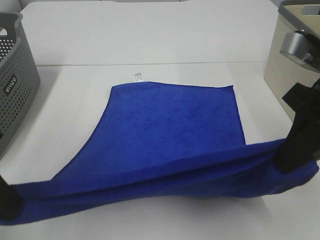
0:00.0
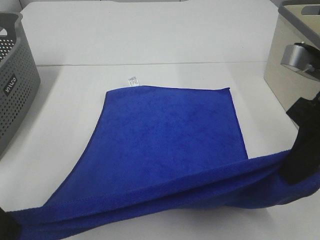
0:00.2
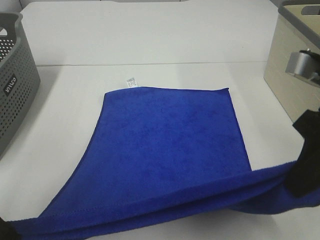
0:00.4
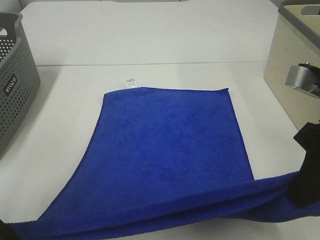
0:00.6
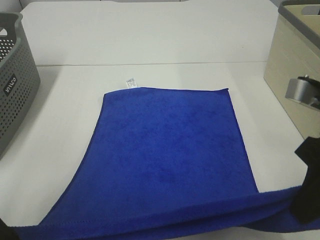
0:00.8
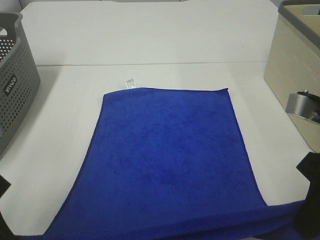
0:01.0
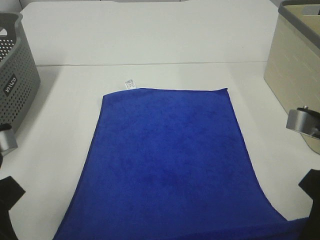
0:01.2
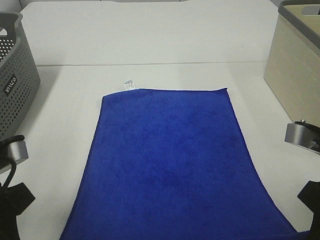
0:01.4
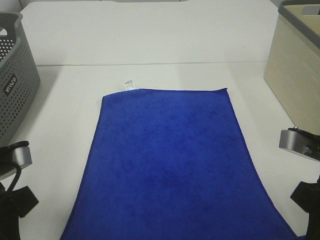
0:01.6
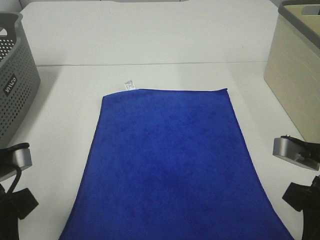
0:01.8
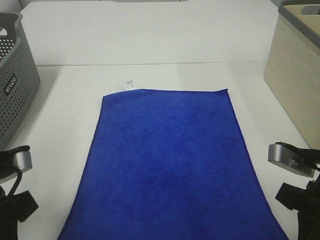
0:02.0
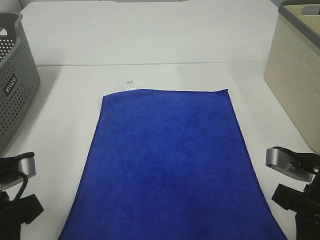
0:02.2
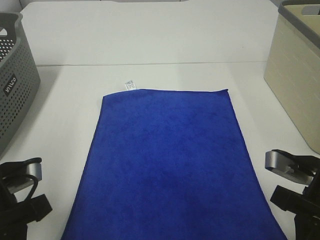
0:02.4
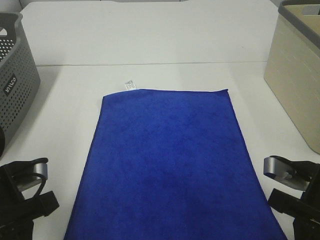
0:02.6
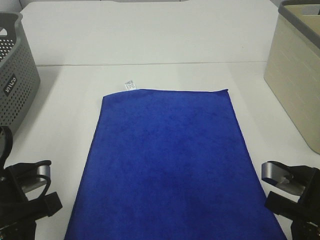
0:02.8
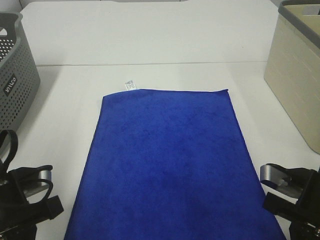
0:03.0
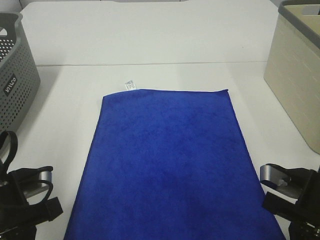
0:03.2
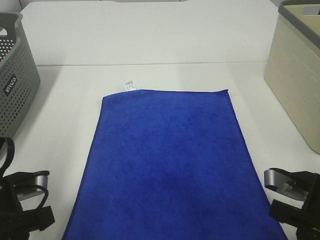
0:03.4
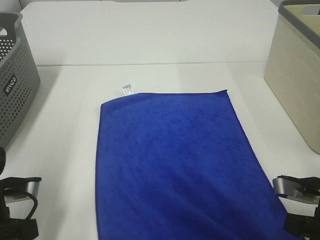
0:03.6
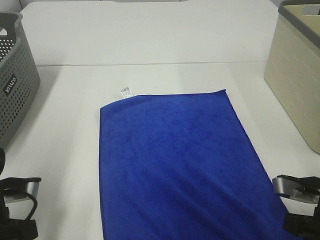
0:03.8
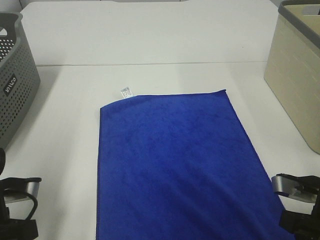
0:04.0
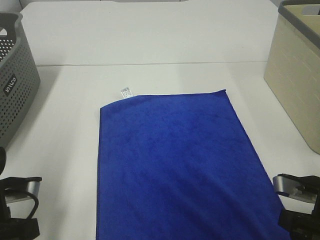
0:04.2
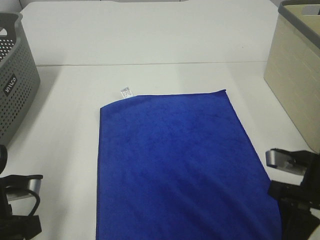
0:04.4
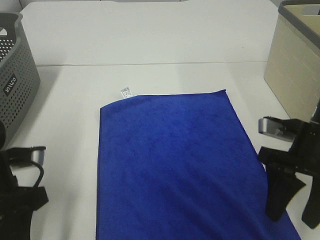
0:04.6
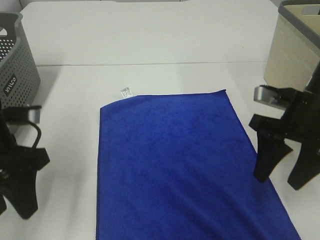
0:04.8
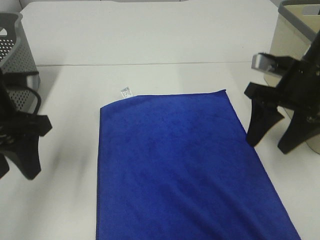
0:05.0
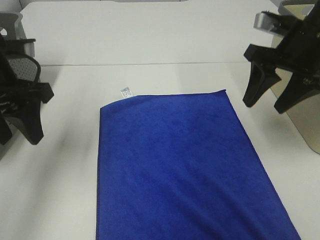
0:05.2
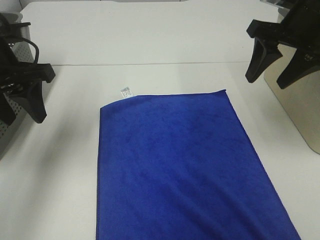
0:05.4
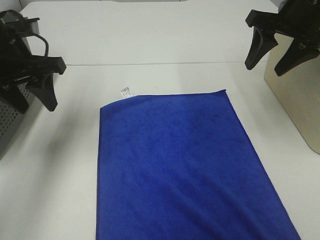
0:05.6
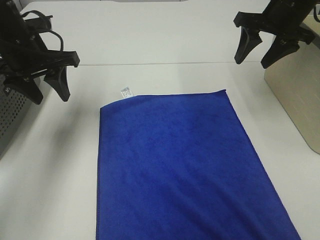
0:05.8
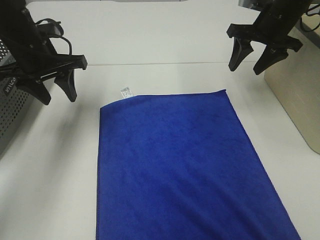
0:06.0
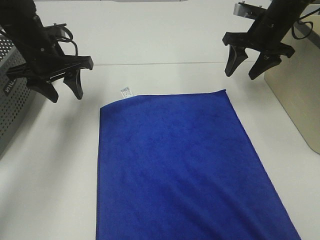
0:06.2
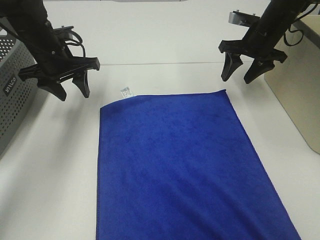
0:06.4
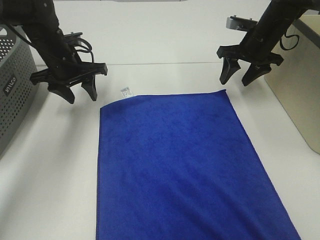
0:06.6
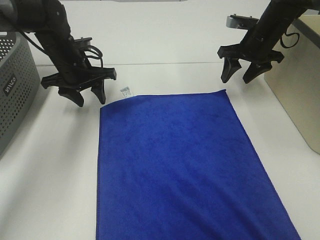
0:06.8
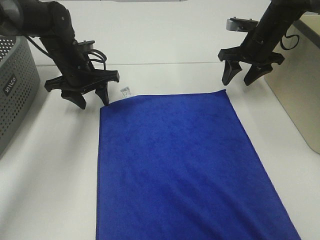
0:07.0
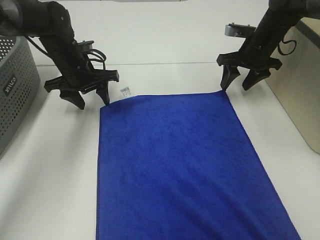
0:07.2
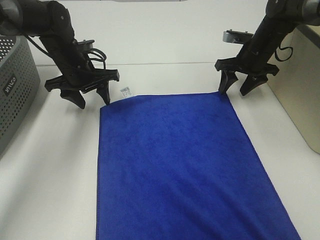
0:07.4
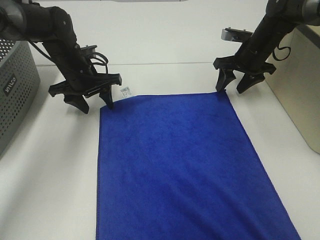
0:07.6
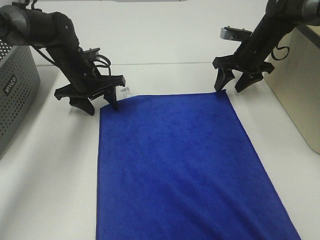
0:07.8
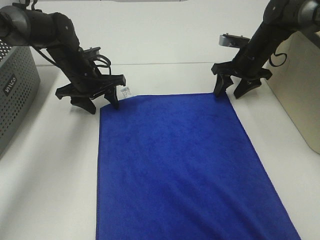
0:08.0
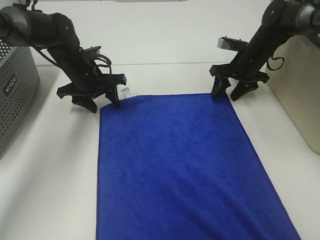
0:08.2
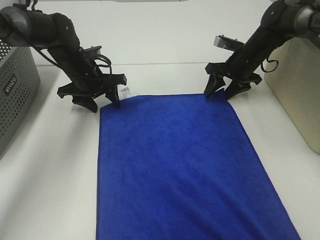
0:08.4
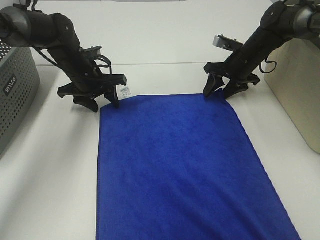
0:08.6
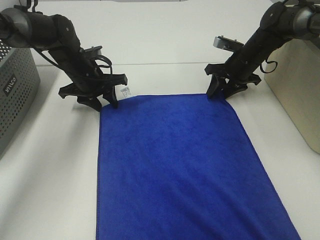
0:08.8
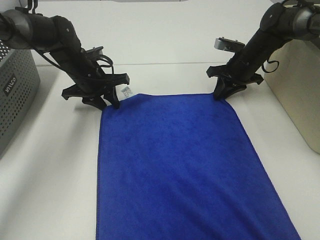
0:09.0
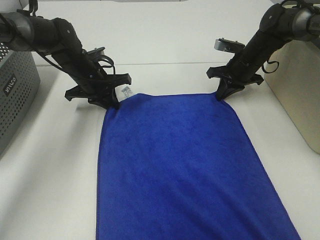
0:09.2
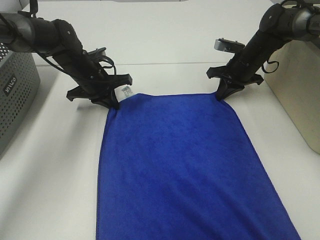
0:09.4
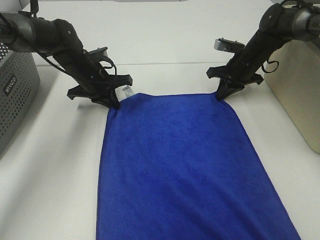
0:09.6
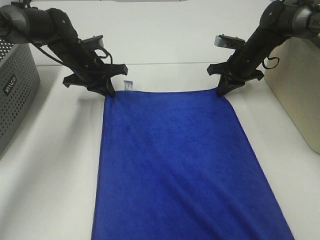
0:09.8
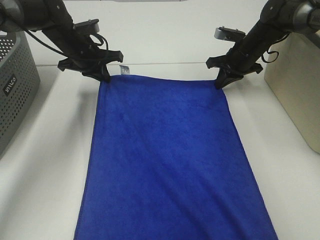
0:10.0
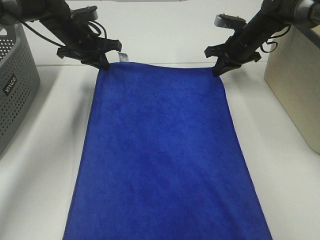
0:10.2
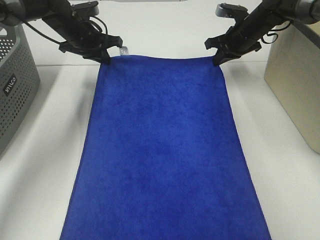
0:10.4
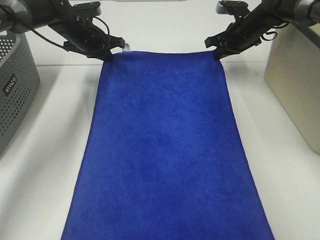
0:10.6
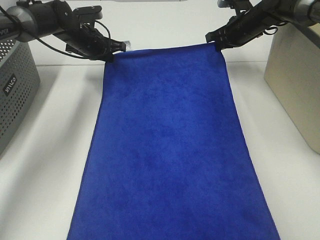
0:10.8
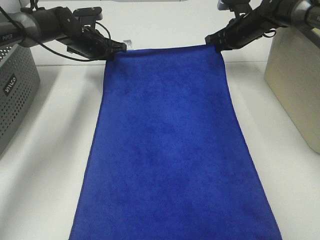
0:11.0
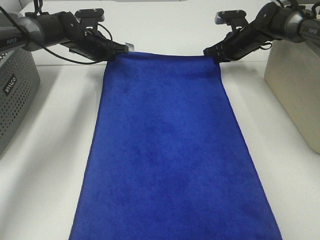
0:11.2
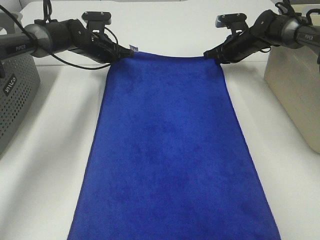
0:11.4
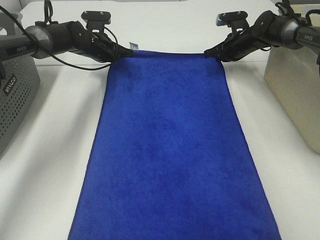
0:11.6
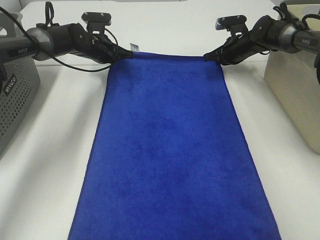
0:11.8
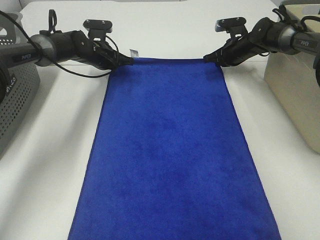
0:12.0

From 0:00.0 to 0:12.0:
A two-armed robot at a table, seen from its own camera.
Task of the whole recording: Remove the towel and place it.
Step, from 0:00.0 to 0:05.6: Right hand:adjust the blue towel.
Step, from 0:00.0 to 0:05.8: Left hand:adjust the blue towel.
From 0:00.0 to 0:01.6: The right gripper travels downward and backward by some 10 cm. Meanwhile the left gripper goes roughly 10 cm downward.
From 0:01.6 to 0:03.0: The grippers both shift downward by roughly 5 cm.
From 0:03.0 to 0:04.4: The left gripper opens its fingers. Meanwhile the right gripper opens its fingers.
From 0:04.4 to 0:06.0: The two grippers go about 25 cm forward.
From 0:06.0 to 0:07.6: The right gripper shifts some 10 cm downward; the left gripper goes some 10 cm downward and forward.
From 0:07.6 to 0:09.0: The right gripper closes.
From 0:09.0 to 0:10.4: The right gripper heads upward, covering about 5 cm, while the left gripper heads forward and upward, covering some 10 cm, and closes its fingers.
From 0:10.4 to 0:12.0: The two grippers go approximately 5 cm downward.

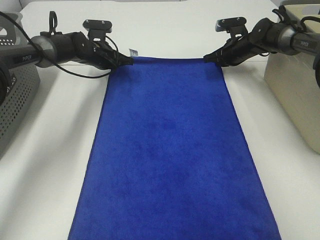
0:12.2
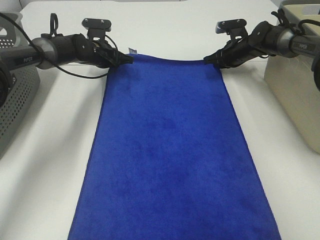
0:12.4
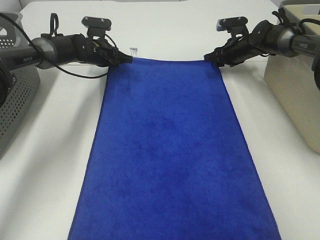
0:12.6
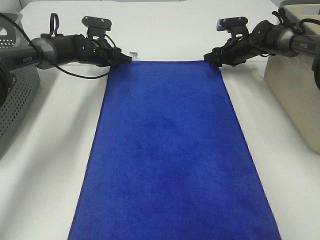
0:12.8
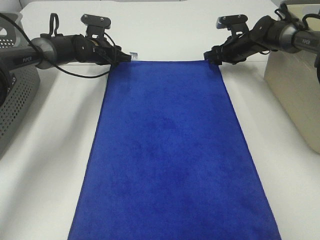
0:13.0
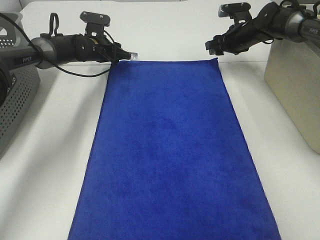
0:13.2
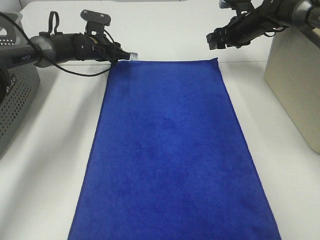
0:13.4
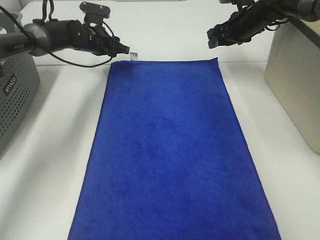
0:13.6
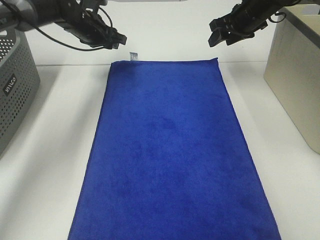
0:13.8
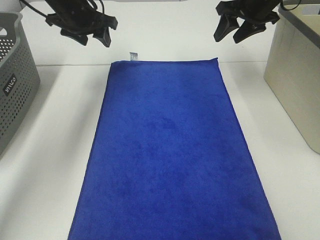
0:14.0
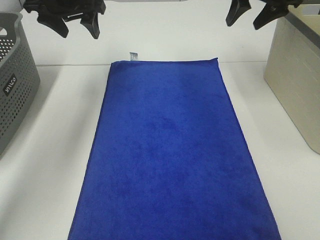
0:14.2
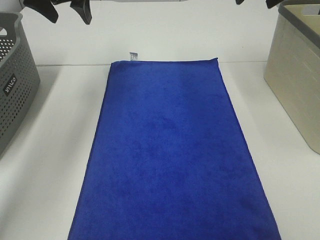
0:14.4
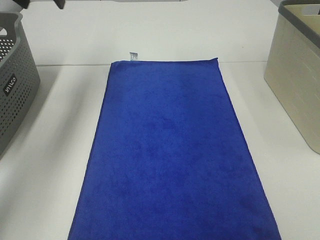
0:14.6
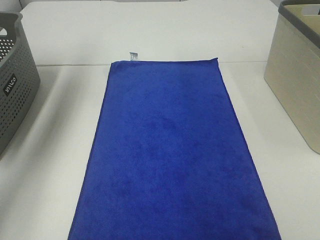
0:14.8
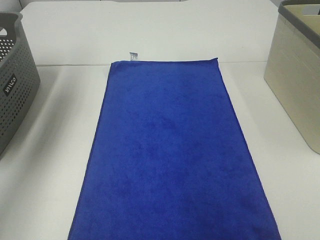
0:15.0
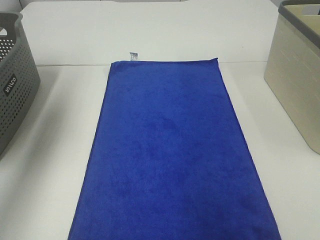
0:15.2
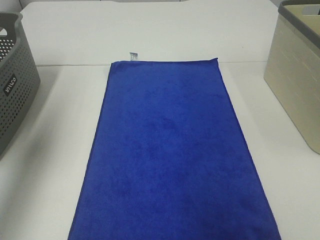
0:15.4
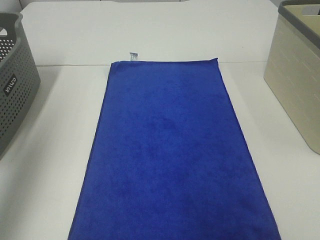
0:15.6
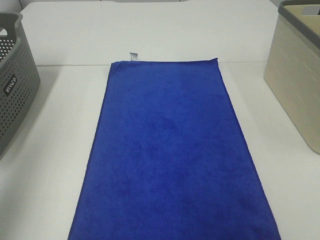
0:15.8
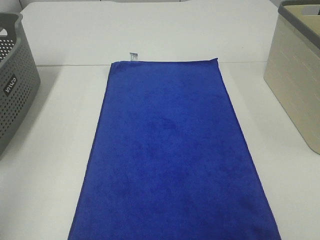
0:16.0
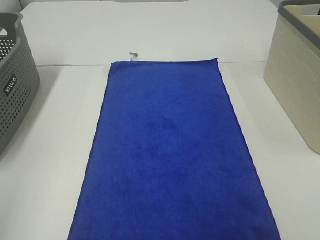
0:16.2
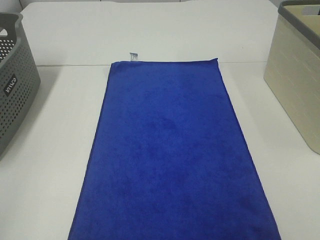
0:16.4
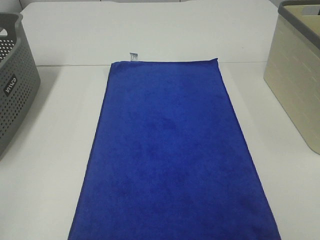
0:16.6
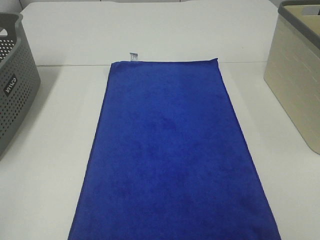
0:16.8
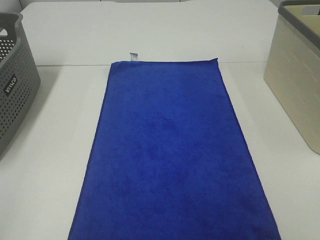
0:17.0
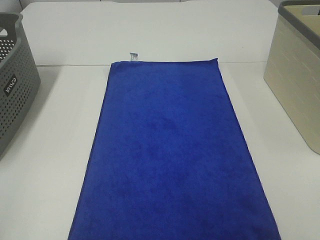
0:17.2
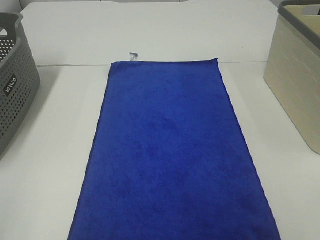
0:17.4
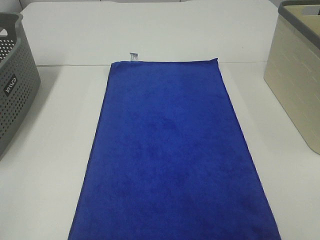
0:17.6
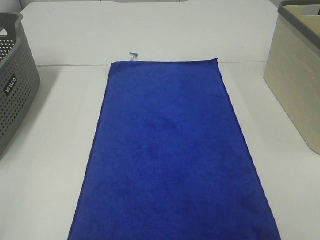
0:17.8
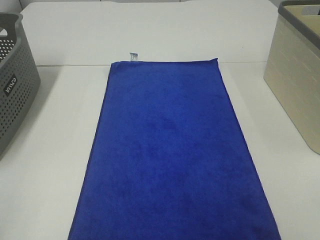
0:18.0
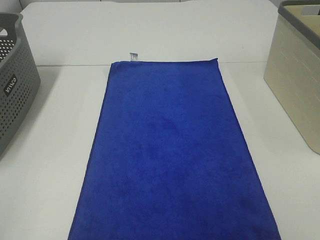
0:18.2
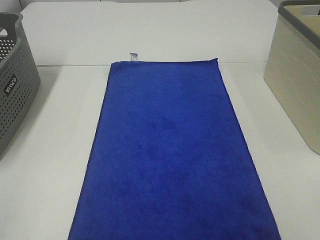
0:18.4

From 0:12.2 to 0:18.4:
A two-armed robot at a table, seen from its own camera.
Task of the whole recording: Remove the towel and place it.
From 0:12.2 to 0:13.8: The two grippers go some 10 cm upward. The left gripper opens up. The right gripper opens its fingers.
From 0:13.8 to 0:15.4: The left gripper is displaced backward, upward and to the left by about 40 cm. Meanwhile the right gripper travels backward and upward by roughly 40 cm.
From 0:15.4 to 0:16.8: The left gripper shifts some 30 cm backward.

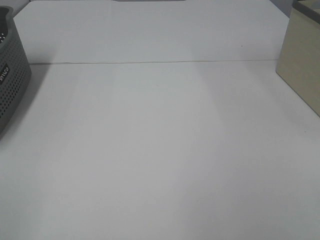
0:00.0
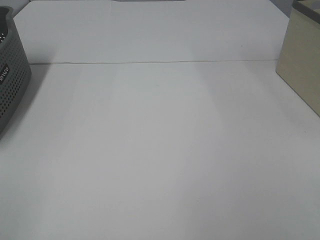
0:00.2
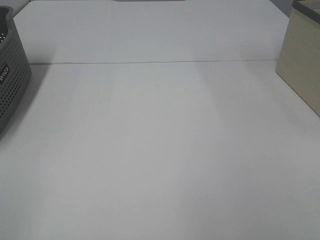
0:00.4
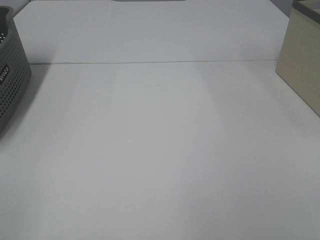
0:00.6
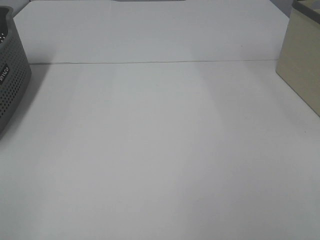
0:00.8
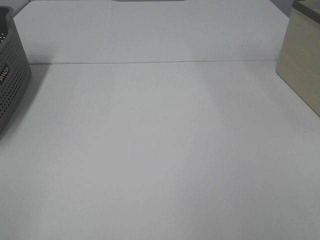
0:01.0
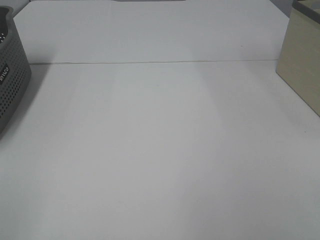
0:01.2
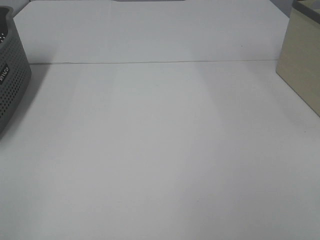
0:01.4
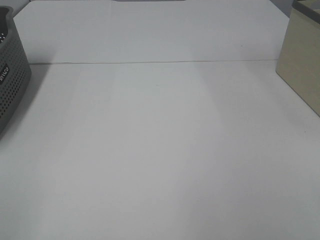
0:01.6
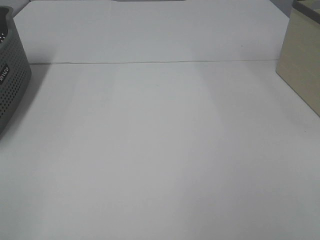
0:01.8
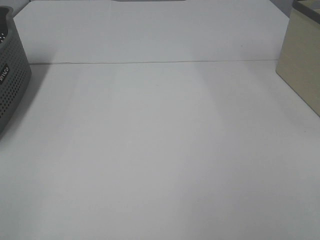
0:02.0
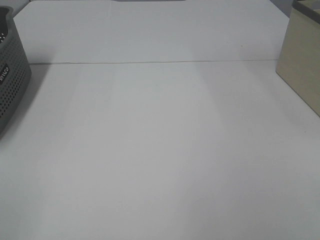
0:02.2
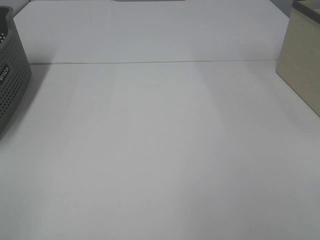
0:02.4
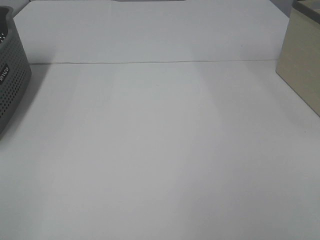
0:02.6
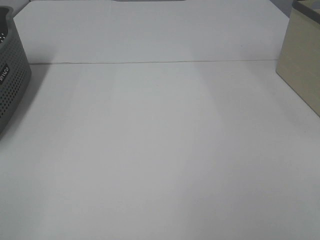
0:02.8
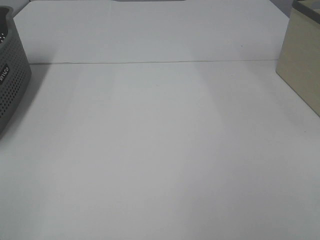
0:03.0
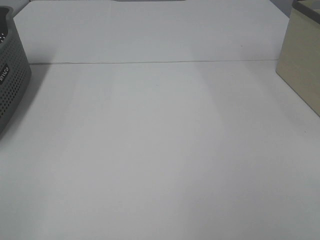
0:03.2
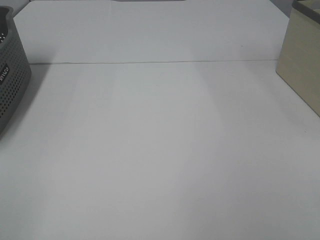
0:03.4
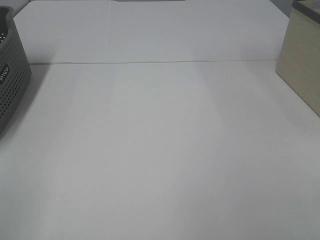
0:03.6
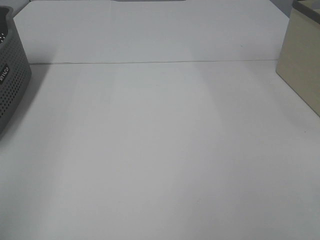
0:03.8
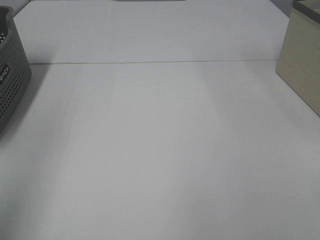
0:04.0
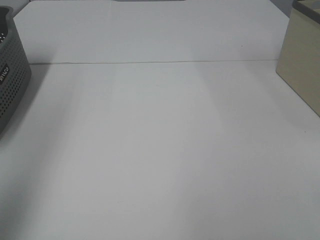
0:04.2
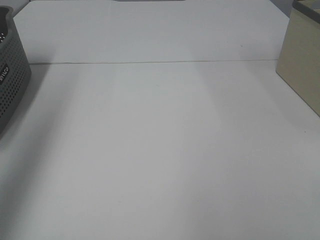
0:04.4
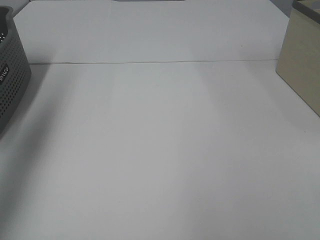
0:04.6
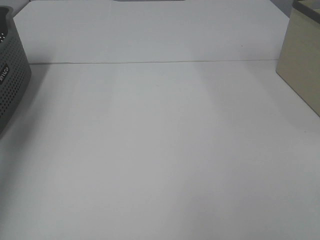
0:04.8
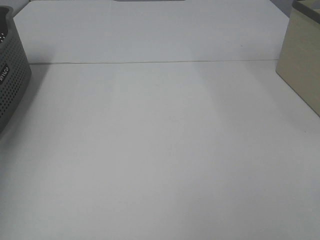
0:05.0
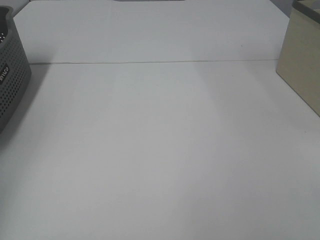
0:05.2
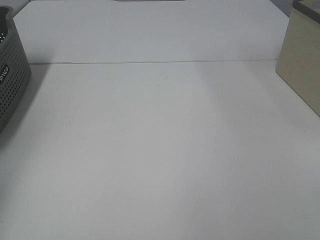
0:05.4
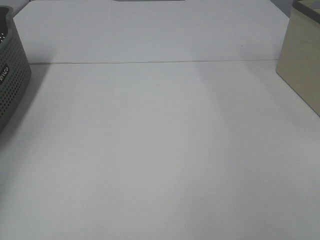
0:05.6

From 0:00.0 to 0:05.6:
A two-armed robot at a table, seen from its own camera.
Task of the whole recording: Remove the towel and place it.
From 0:00.0 to 0:02.8: Both grippers stay about where they are.
From 0:02.8 to 0:04.2: The left gripper is displaced forward and upward by approximately 20 cm.
From 0:04.2 to 0:05.6: The left gripper moves forward, downward and to the left, some 35 cm.
